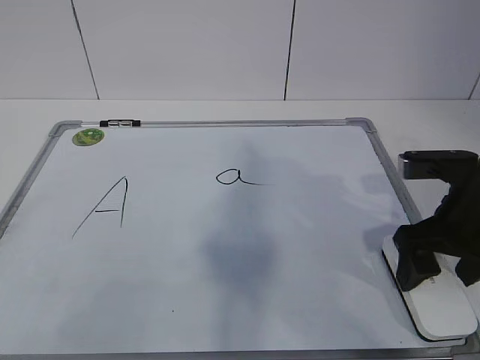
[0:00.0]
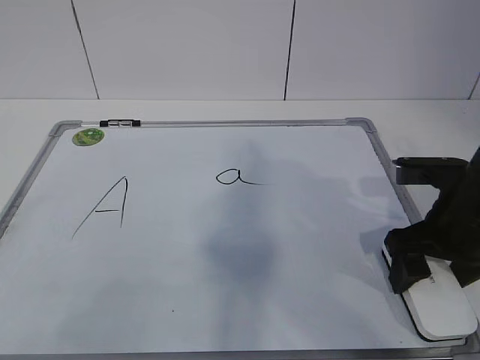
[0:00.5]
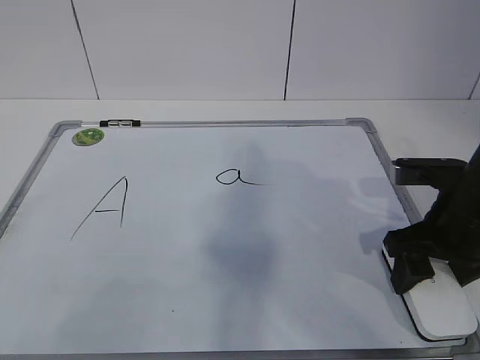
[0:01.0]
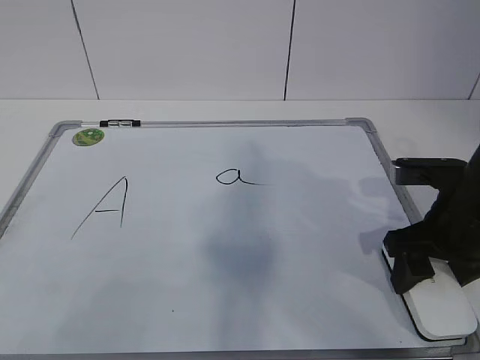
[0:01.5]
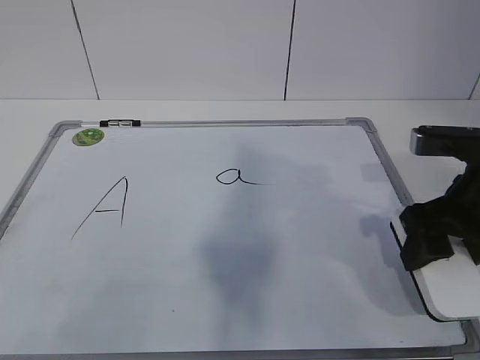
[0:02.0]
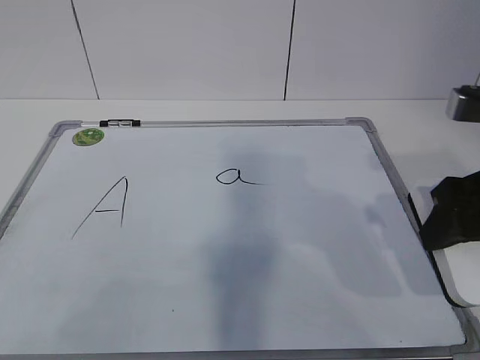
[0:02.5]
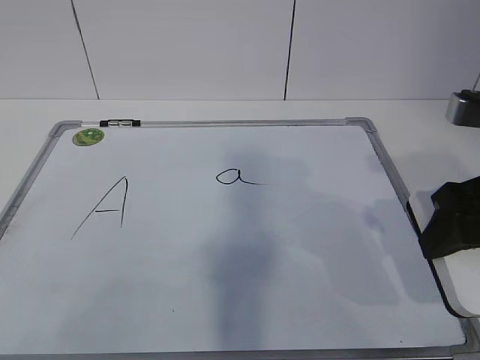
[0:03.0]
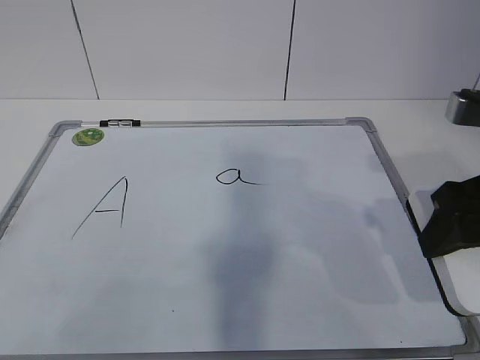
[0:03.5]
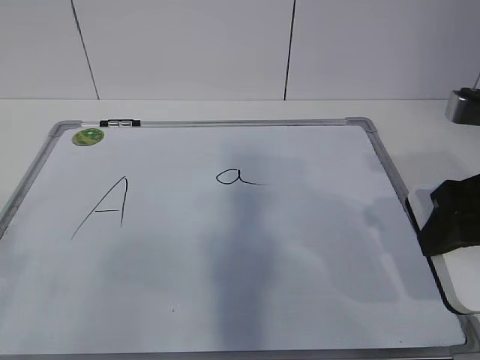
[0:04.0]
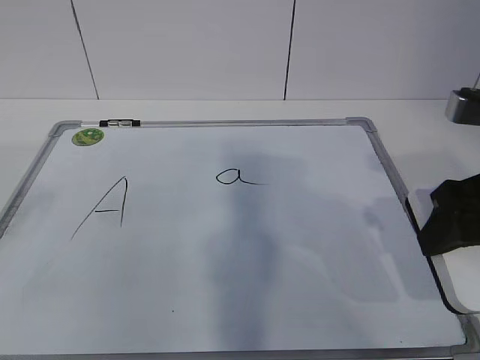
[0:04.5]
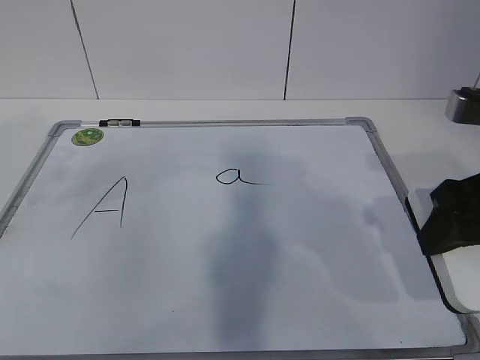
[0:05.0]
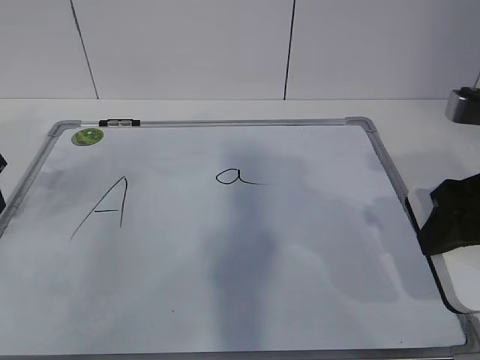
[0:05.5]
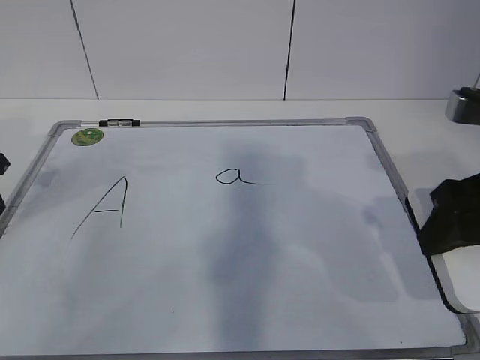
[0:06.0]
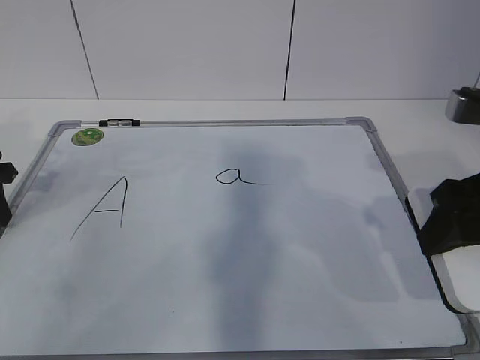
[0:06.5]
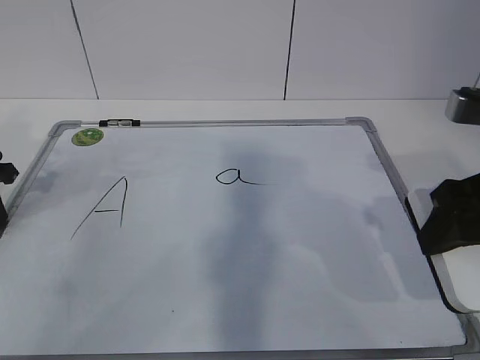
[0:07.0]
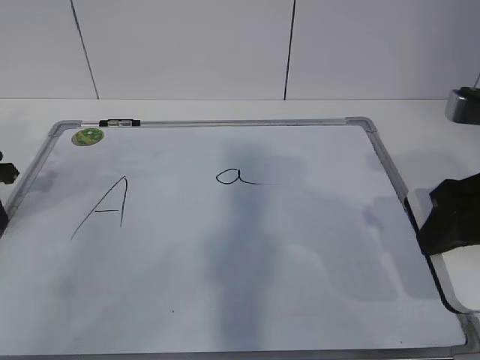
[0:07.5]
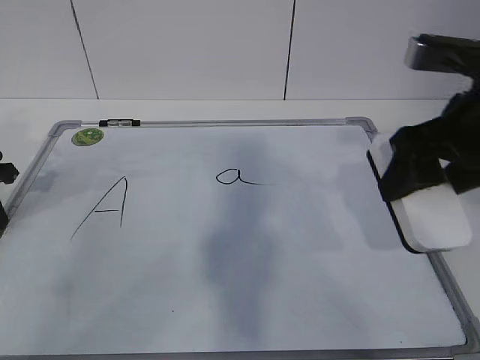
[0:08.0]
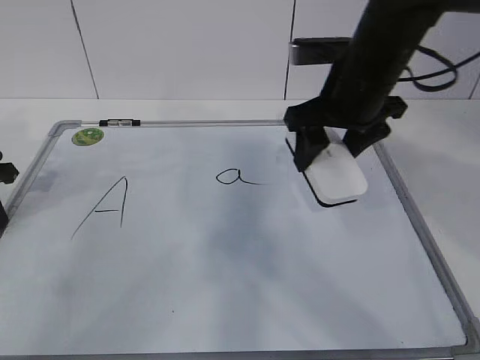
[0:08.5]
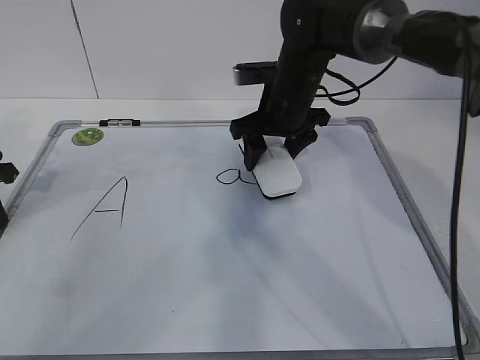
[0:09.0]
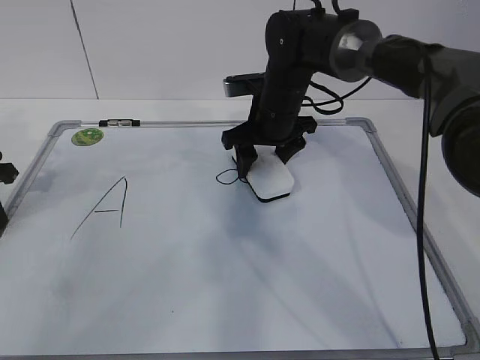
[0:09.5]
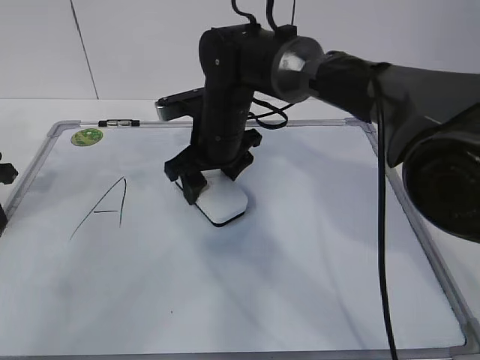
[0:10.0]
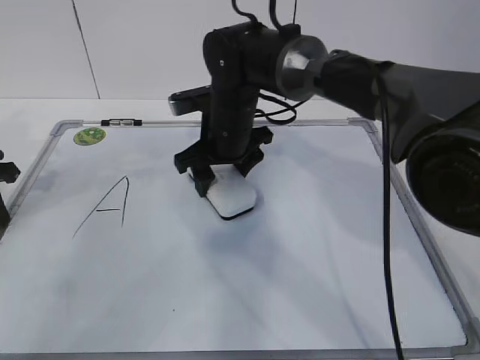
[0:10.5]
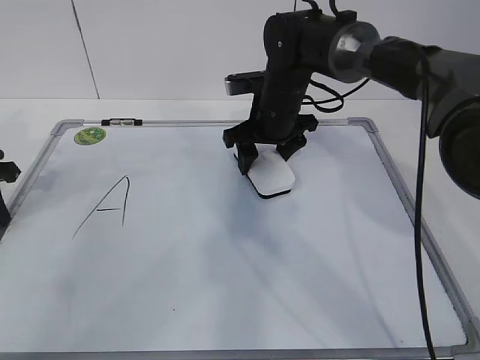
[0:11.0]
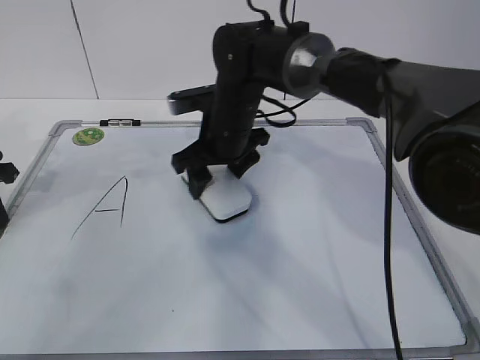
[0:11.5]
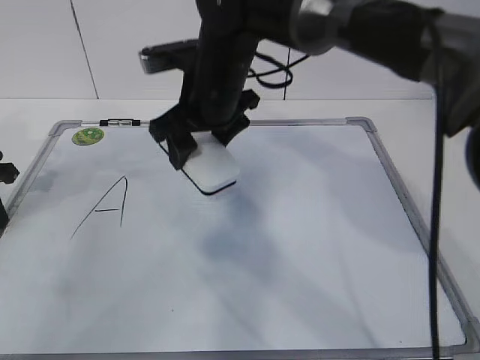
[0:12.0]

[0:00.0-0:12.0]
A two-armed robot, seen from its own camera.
Task of the whole recording: pick up the eraser on the blackboard and erase the letter "a".
Step, 0:00.0 to 0:04.5: Hold the drawing board steady with your left hand.
Step, 0:05.0 to 0:08.5: Erase the letter a with your right hand.
Step, 0:09.0 to 0:11.0: Put down the eraser with your right hand.
0:00.0 to 0:02.0: The right gripper closes up.
0:02.0 to 0:04.0: The right gripper ends up roughly 5 cm from where it was.
0:04.0 to 0:06.0: The left gripper is displaced forward and downward by about 35 cm, and closes its fingers.
0:06.0 to 0:08.0: The right gripper shifts by some 5 cm.
0:08.0 to 0:10.0: The right gripper travels to the left, forward and downward by roughly 30 cm.
0:10.0 to 0:12.0: The right gripper heads upward, covering some 10 cm, and reaches about 10 cm to the right, then returns.

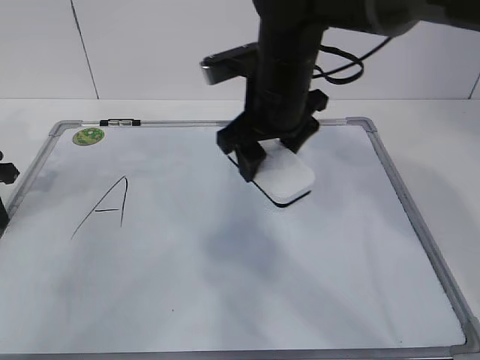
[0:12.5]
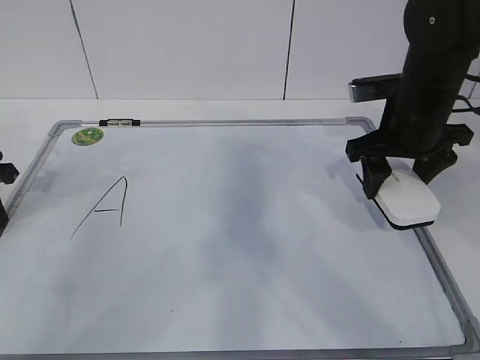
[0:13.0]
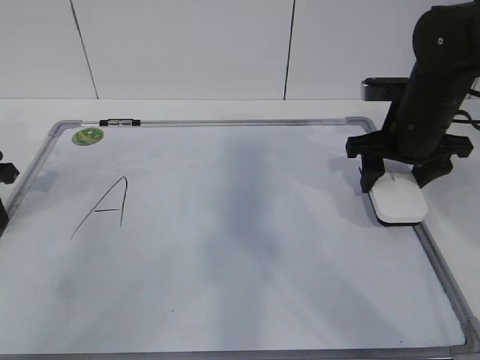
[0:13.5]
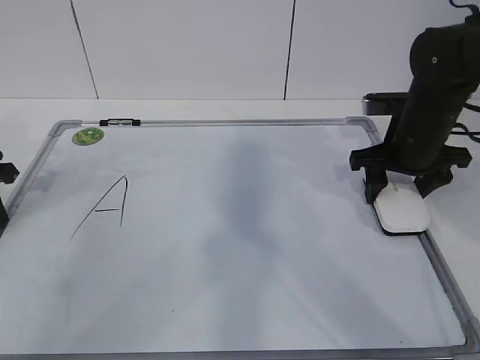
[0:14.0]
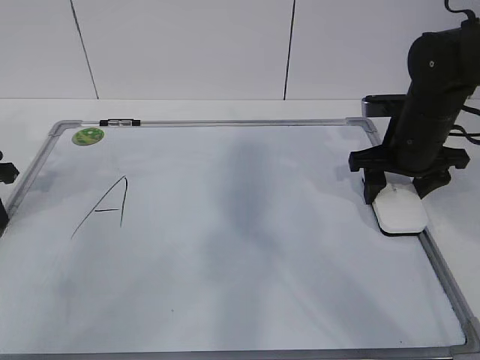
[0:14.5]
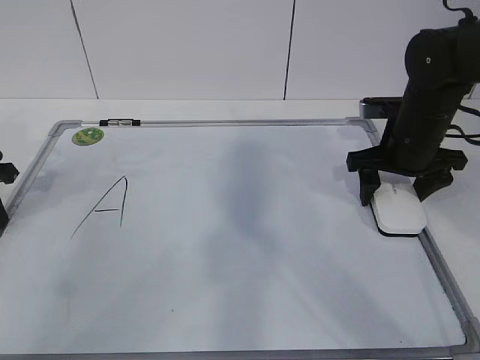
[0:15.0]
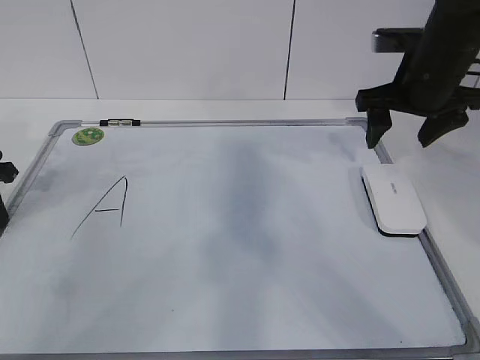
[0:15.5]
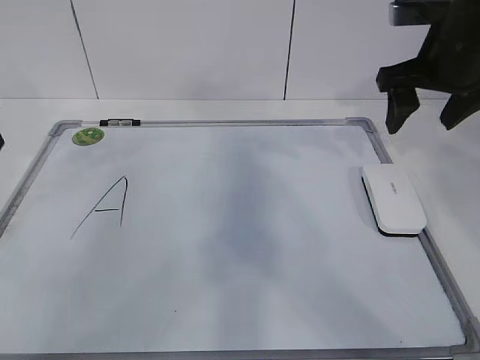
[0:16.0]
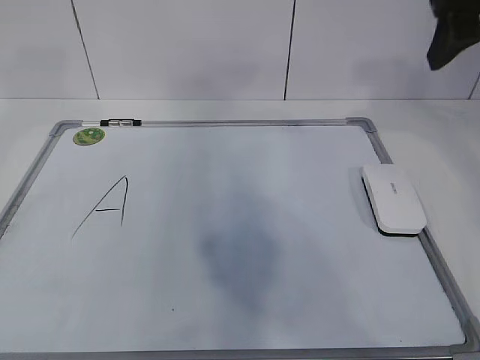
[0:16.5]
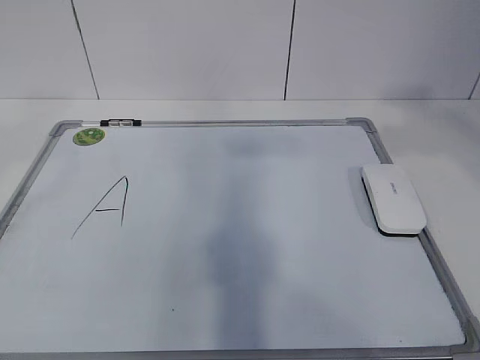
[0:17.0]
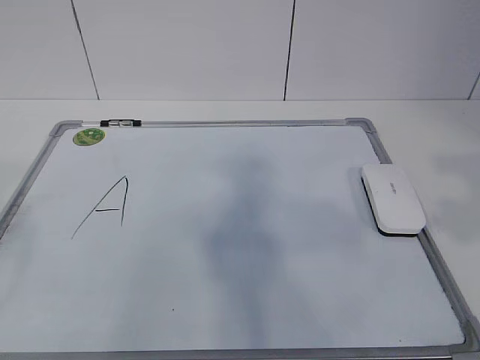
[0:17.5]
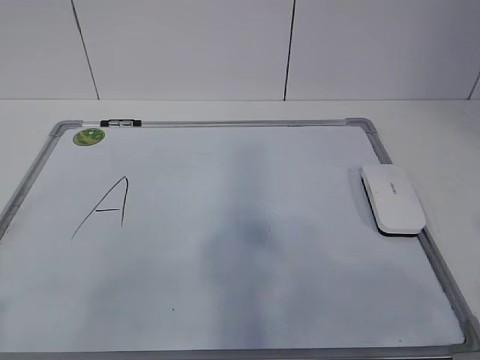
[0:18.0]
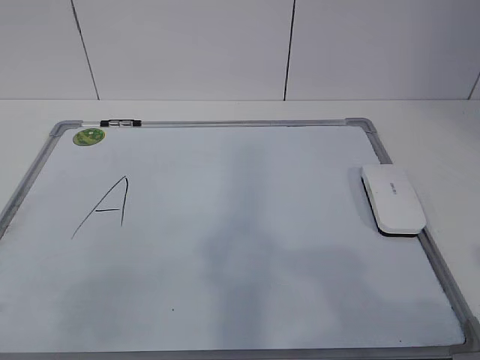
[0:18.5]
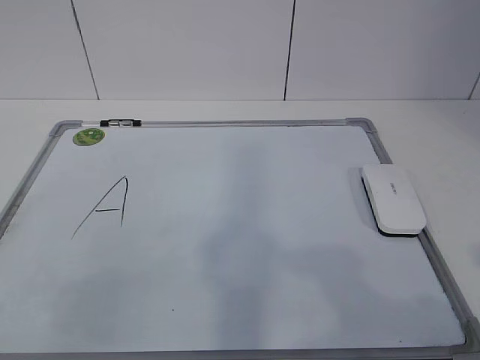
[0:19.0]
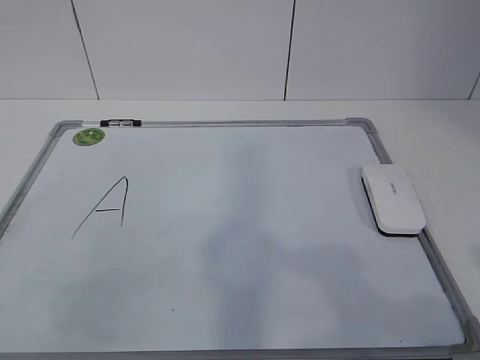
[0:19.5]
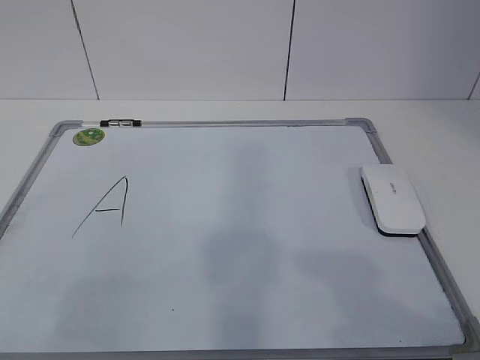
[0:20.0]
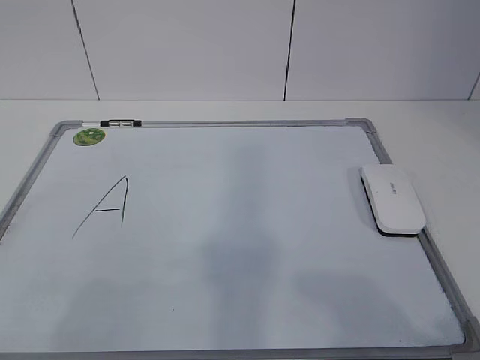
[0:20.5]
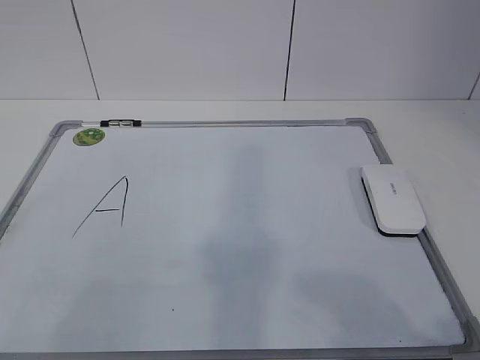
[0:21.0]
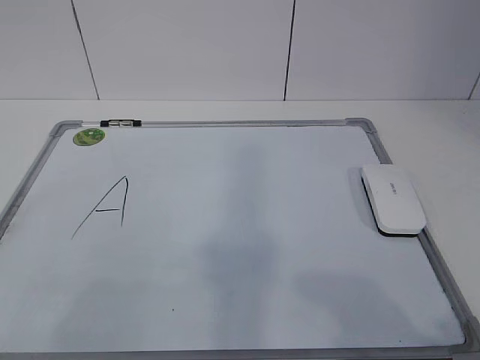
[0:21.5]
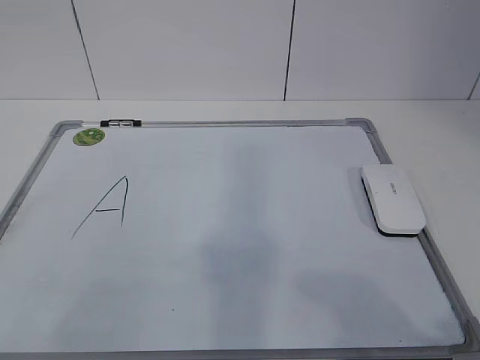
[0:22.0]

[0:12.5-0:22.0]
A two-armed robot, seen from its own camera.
Task of the whole recording: pick up the eraser on the blackboard and erase the letter "a".
0:12.5 to 0:14.5: The right gripper is displaced to the right and downward by approximately 20 cm.
0:14.5 to 0:16.5: The grippers both shift upward by about 25 cm. The left gripper opens its fingers. The right gripper opens up.
0:16.5 to 0:18.0: Both grippers move backward, some 30 cm.
